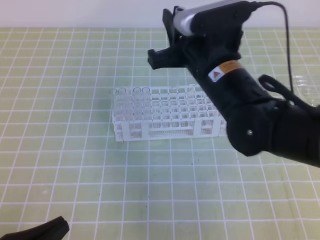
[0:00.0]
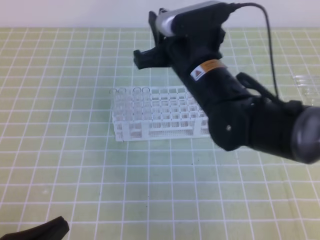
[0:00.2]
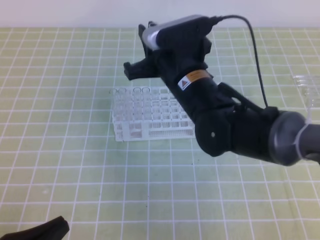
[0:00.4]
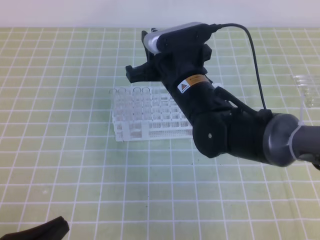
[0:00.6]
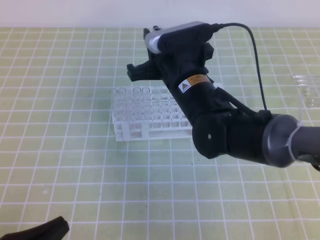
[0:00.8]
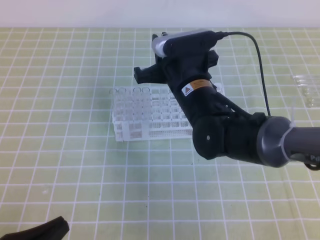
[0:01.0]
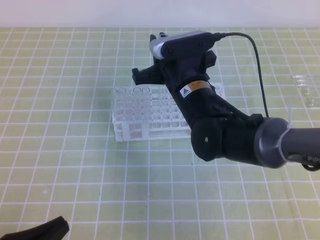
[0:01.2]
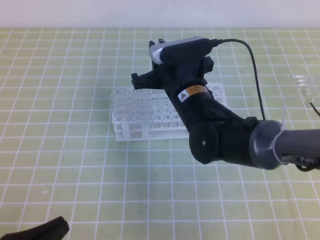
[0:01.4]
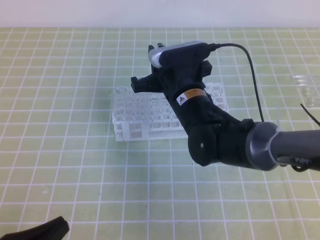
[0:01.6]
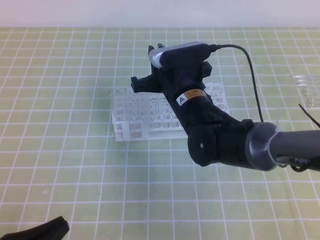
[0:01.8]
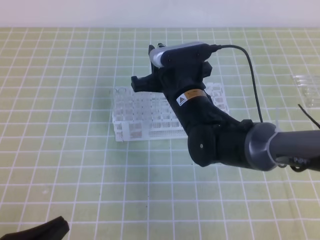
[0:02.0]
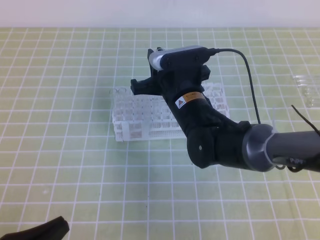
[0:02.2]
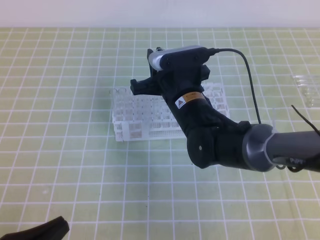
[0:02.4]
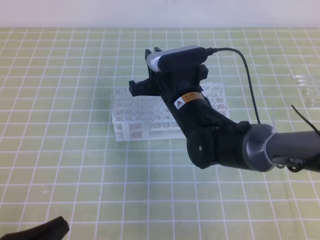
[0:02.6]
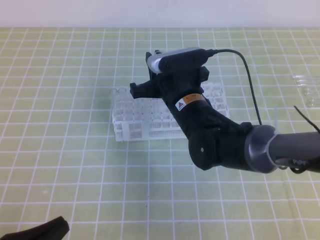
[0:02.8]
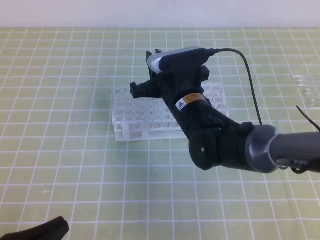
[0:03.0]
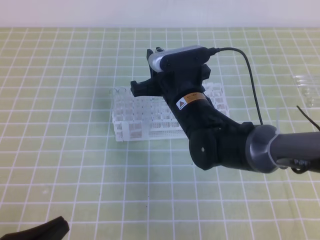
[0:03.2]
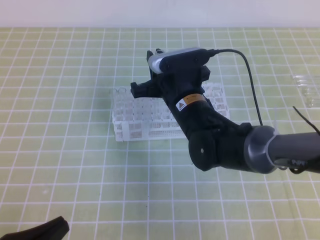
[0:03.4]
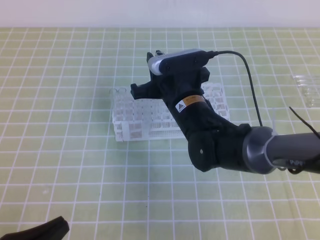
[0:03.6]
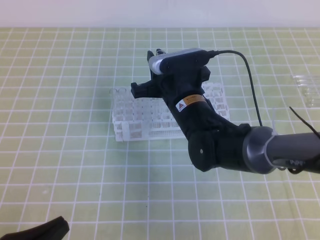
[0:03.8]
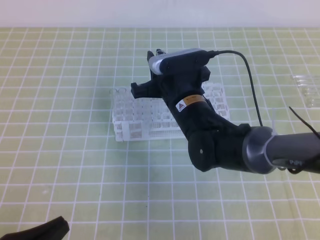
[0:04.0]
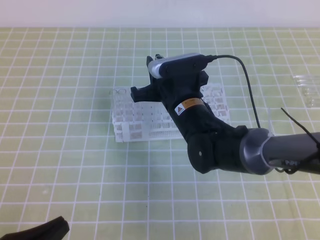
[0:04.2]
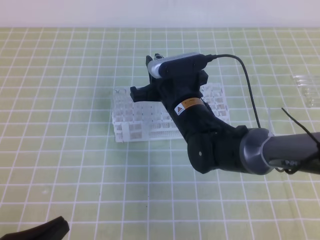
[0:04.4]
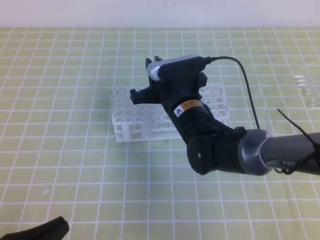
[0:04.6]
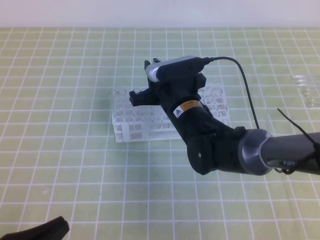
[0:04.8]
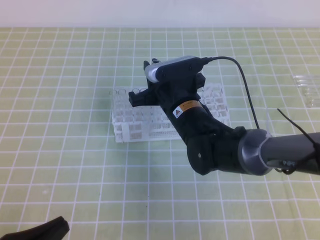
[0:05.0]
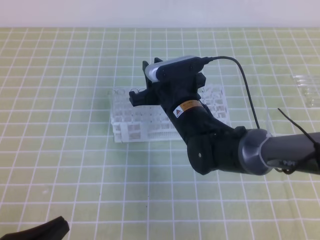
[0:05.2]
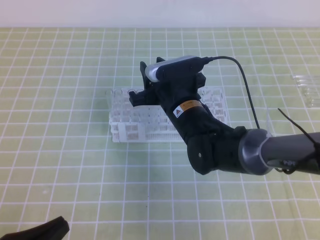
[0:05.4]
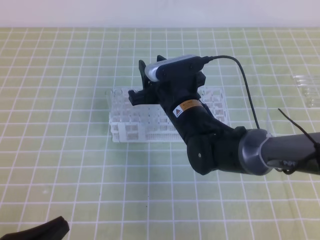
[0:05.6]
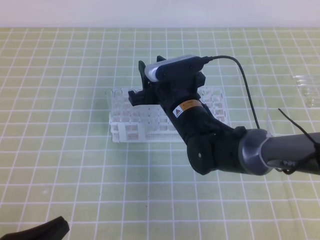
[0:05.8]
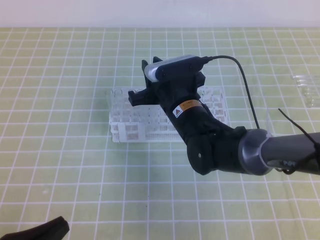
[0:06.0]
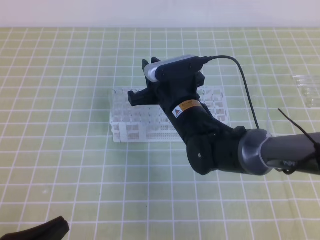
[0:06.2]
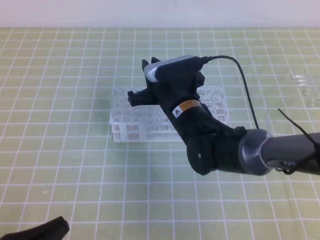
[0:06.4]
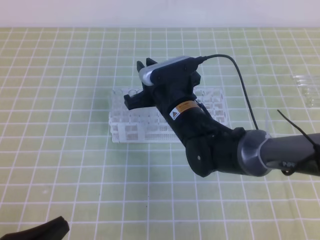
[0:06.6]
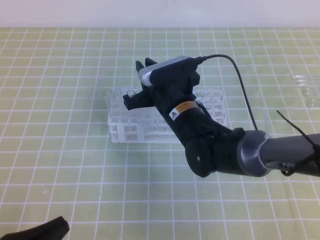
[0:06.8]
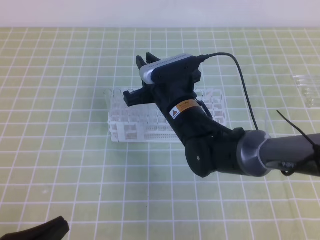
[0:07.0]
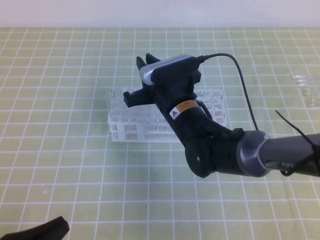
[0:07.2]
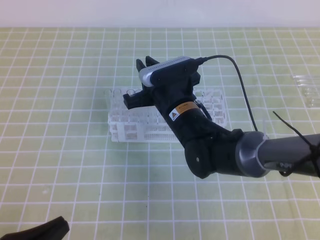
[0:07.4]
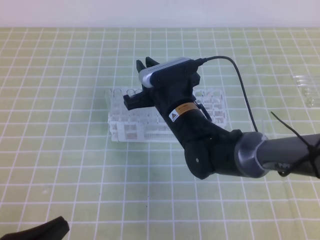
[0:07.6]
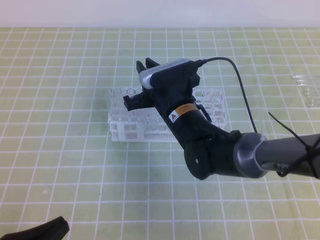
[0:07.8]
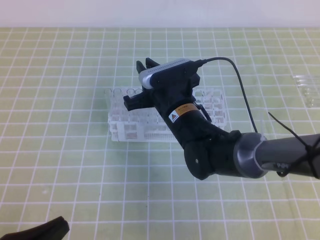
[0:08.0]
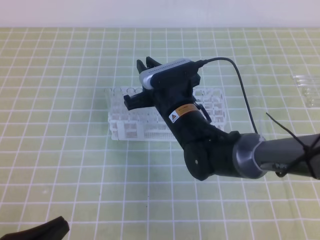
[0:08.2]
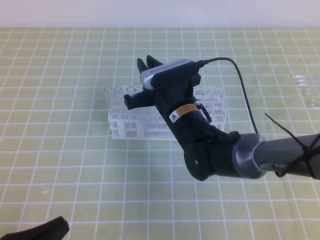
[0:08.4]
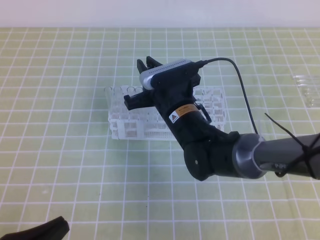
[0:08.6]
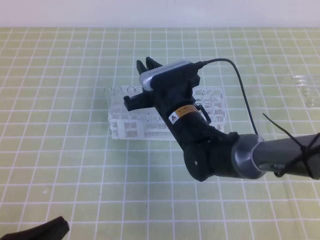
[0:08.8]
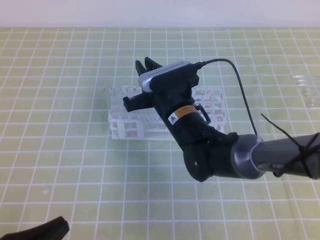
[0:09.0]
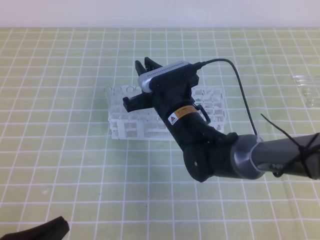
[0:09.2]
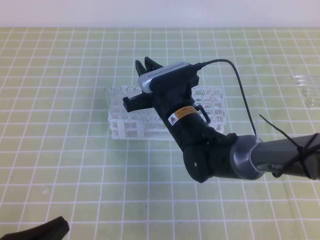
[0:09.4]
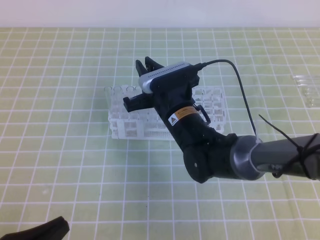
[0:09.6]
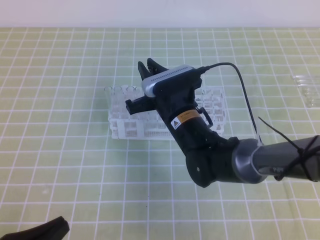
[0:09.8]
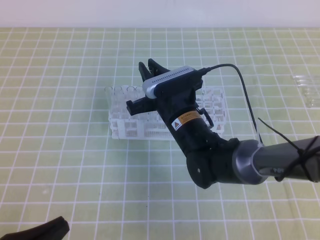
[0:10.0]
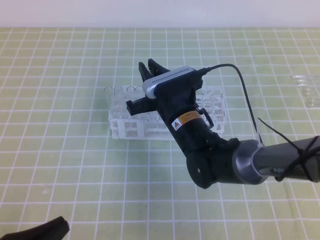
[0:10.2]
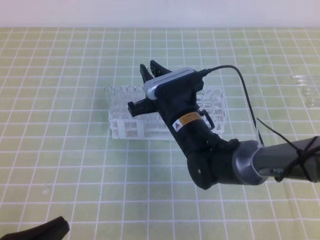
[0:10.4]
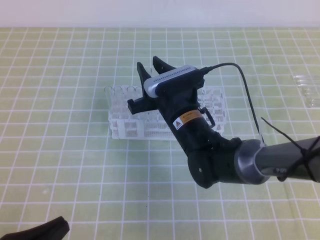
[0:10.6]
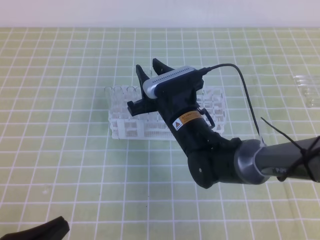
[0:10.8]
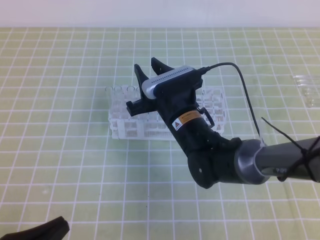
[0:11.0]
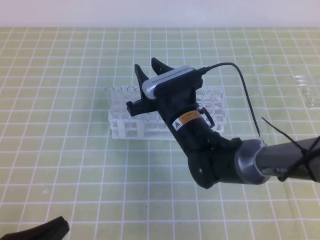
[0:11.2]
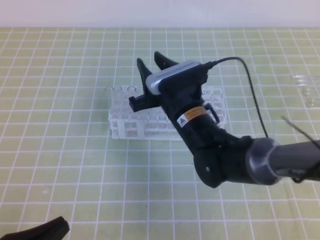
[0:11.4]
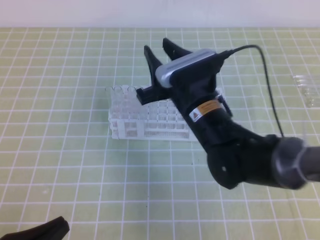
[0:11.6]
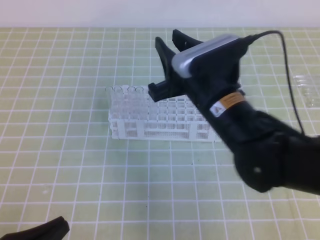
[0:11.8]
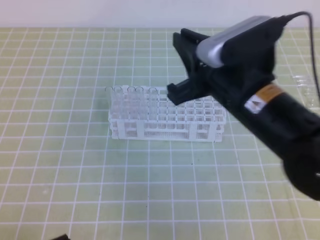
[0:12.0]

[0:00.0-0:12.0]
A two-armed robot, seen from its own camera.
0:00.0 to 0:01.6: The right gripper moves downward, approximately 10 cm.
0:01.6 to 0:03.0: Both grippers stay about where they are.
0:03.0 to 0:04.4: Both grippers stay about where they are.
0:04.4 to 0:06.0: Both grippers stay put.
0:06.0 to 0:07.6: Neither gripper changes place.
0:07.6 to 0:09.0: The two grippers keep their place.
0:09.0 to 0:10.4: Neither gripper changes place.
0:10.4 to 0:12.0: The right gripper moves upward, backward and to the right, roughly 15 cm.

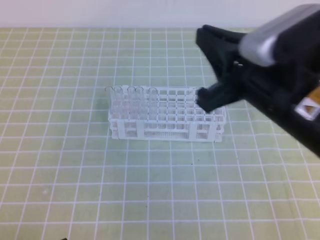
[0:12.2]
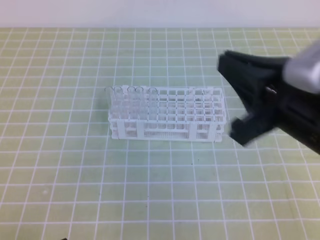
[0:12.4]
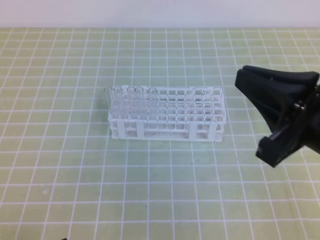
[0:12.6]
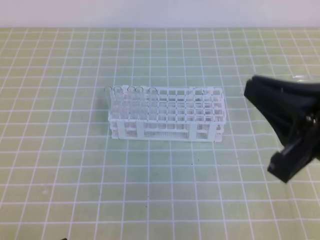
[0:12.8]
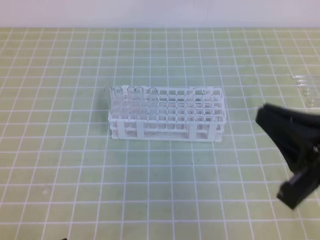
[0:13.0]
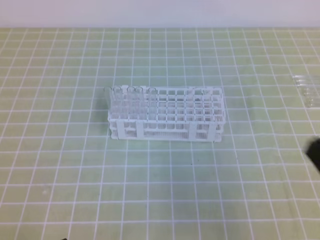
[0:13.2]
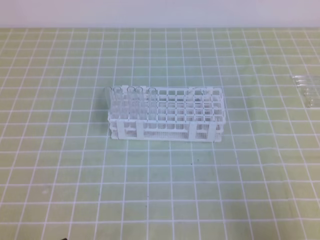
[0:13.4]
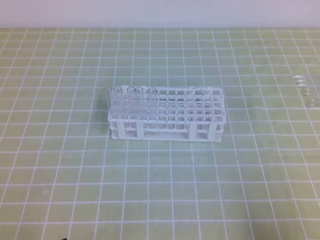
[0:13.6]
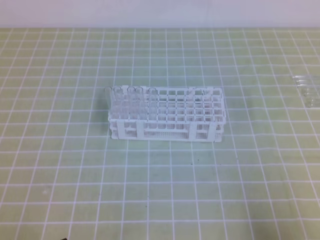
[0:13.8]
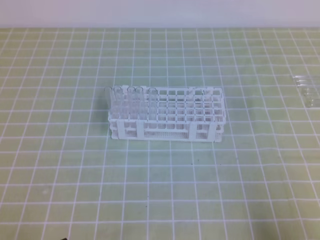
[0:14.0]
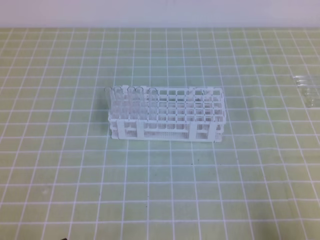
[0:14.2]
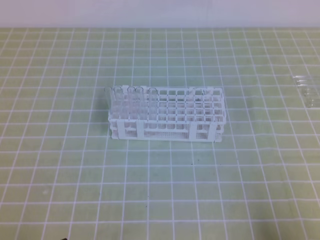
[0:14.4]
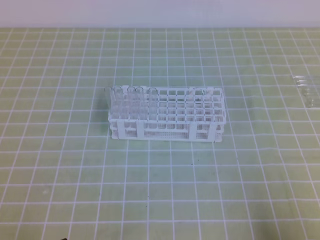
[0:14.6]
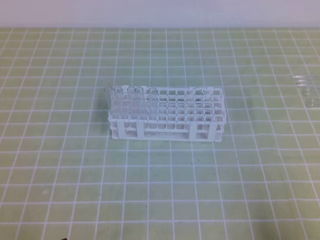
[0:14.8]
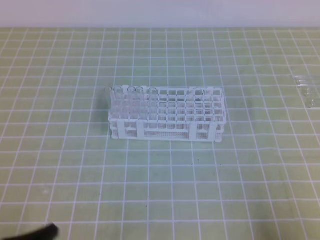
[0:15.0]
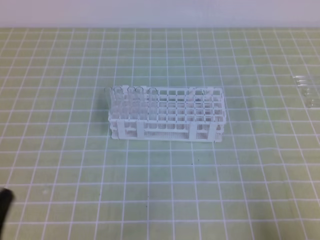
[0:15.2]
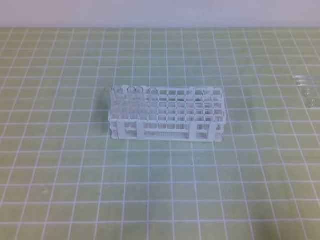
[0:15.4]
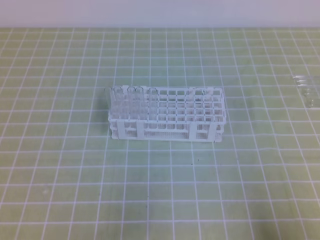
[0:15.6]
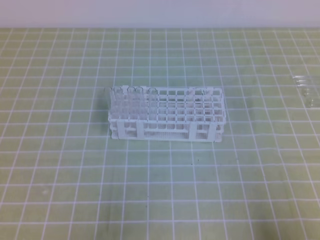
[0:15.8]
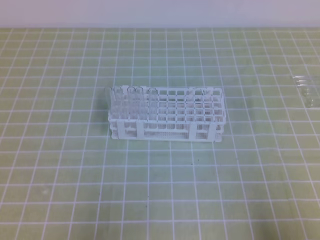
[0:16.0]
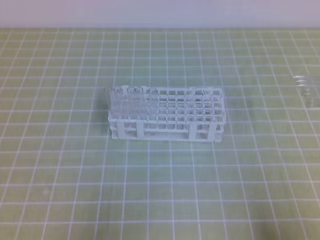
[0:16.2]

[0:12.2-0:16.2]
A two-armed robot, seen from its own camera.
0:12.2 to 0:13.6: The right gripper moves to the right, backward and downward, roughly 25 cm.

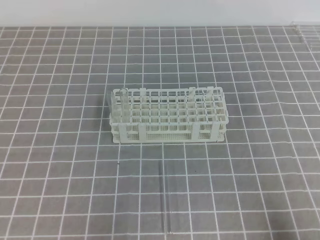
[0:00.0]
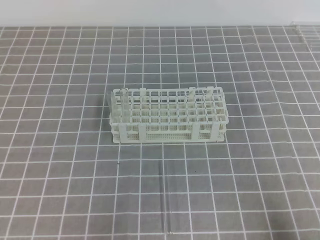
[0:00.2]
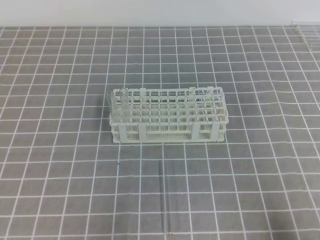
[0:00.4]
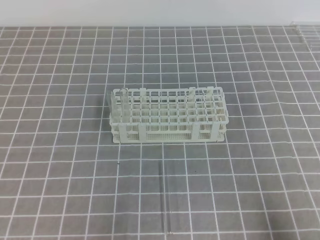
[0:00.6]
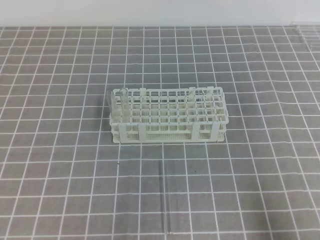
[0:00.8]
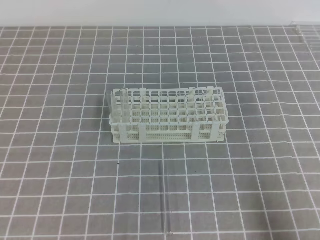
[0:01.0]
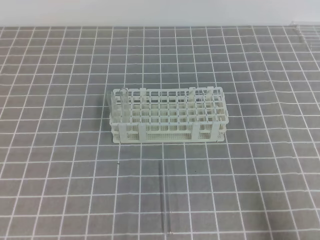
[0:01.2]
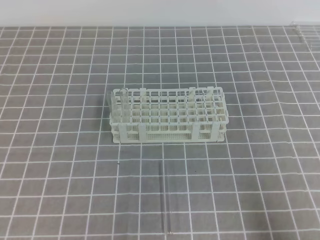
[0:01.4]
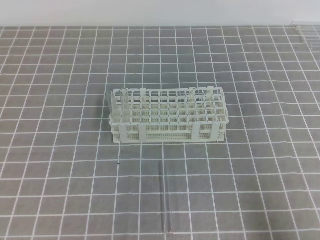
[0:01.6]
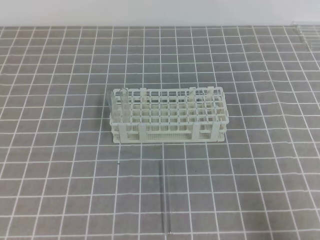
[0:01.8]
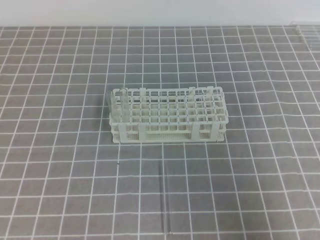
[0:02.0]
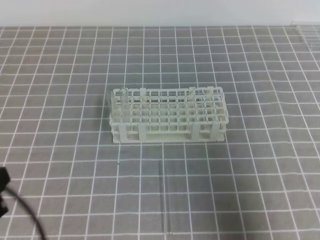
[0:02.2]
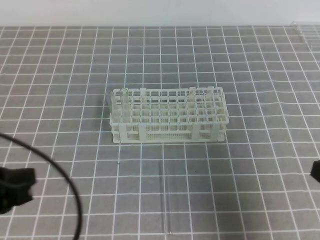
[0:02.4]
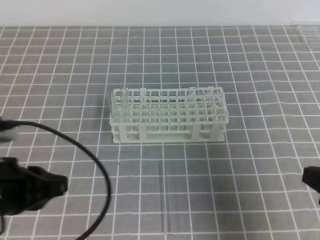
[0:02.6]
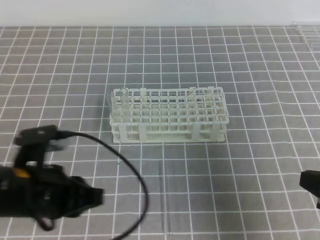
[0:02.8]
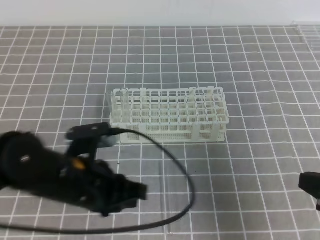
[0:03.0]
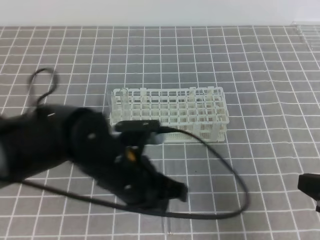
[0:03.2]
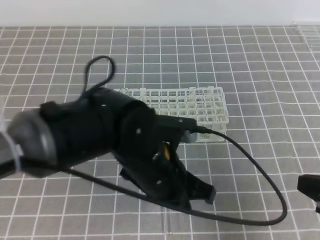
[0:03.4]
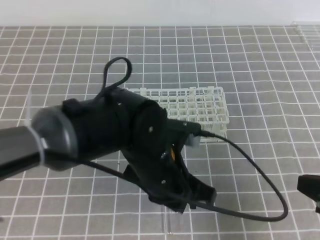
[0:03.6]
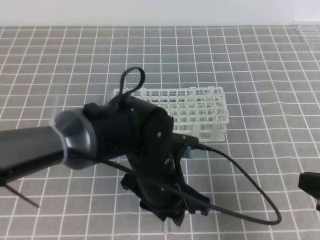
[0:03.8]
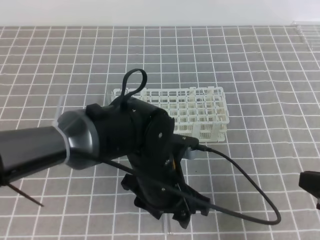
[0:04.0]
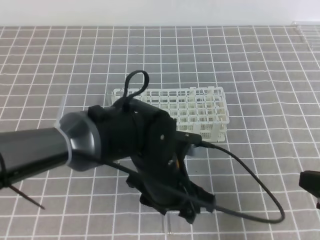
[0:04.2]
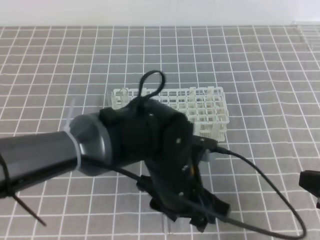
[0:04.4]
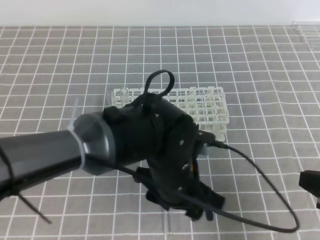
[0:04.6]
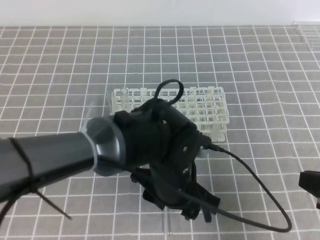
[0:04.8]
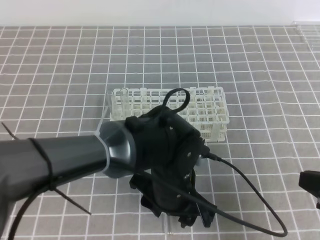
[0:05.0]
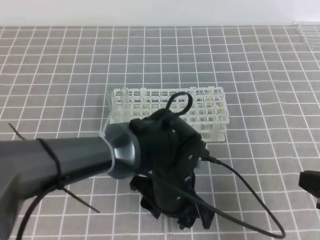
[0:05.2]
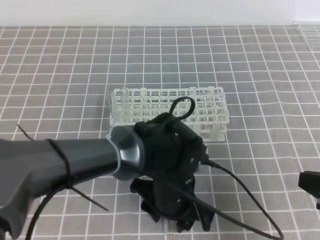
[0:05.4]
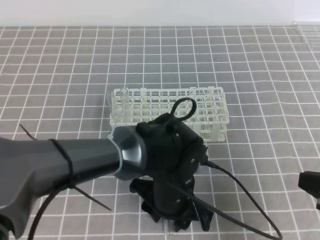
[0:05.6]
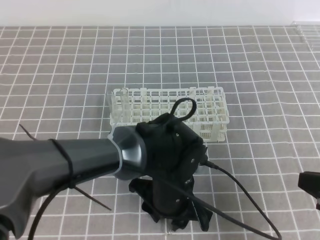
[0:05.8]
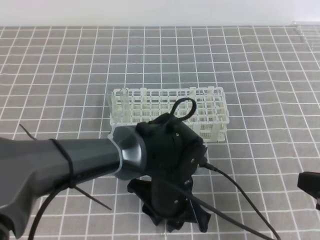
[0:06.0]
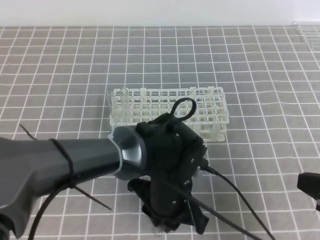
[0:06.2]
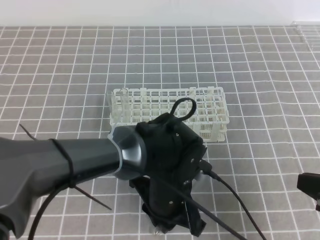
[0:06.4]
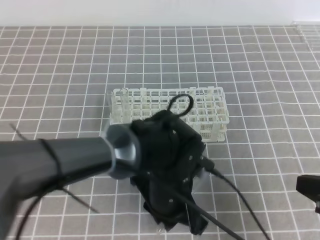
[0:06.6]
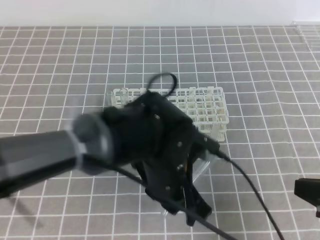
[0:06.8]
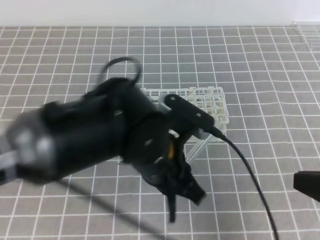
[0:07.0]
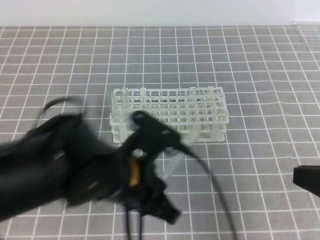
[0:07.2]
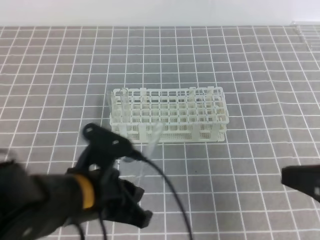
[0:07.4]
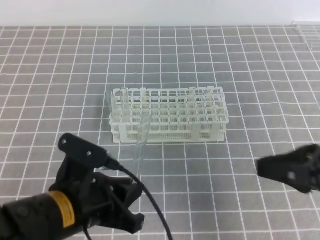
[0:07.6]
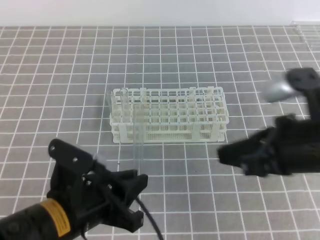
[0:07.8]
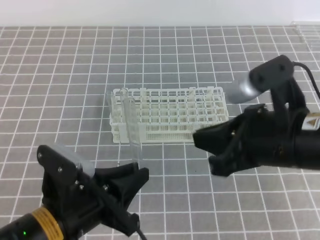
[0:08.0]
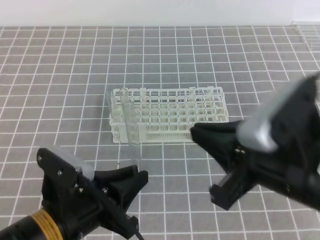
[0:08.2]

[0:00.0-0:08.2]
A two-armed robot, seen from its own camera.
0:01.6 to 0:03.2: The right gripper moves forward and upward, approximately 10 cm. The left gripper is displaced to the right and forward by roughly 25 cm.
0:03.2 to 0:05.0: The left gripper is displaced to the right and downward by roughly 10 cm, and opens its fingers.
0:05.0 to 0:06.6: The left gripper closes its fingers.
0:06.6 to 0:08.2: The right gripper heads to the left and upward, covering roughly 15 cm. The left gripper goes approximately 15 cm to the left and backward.
